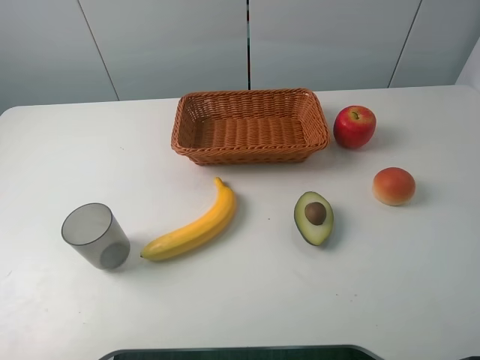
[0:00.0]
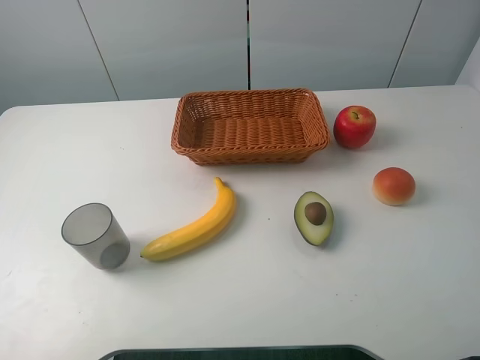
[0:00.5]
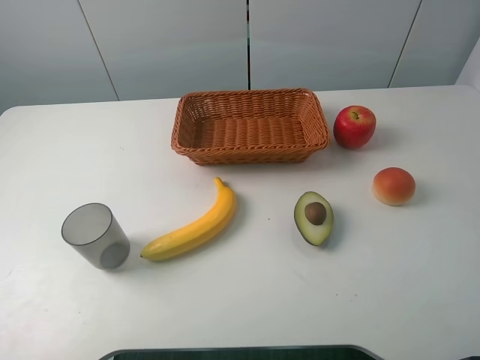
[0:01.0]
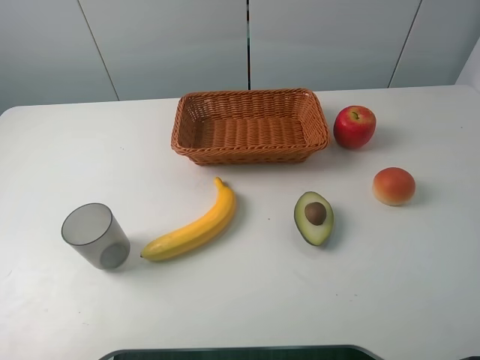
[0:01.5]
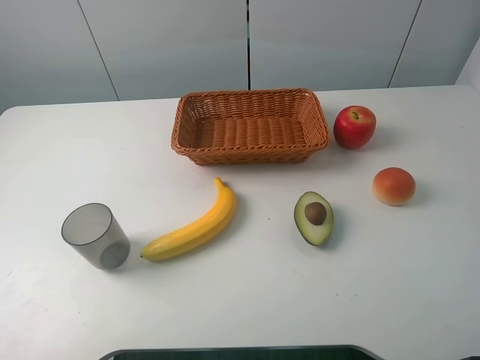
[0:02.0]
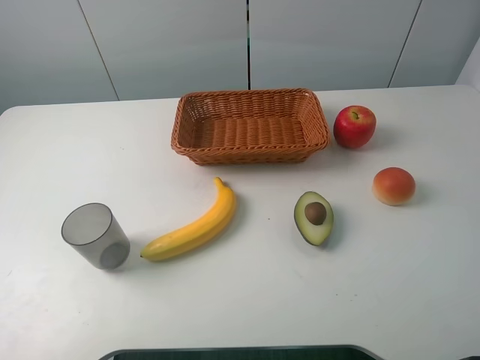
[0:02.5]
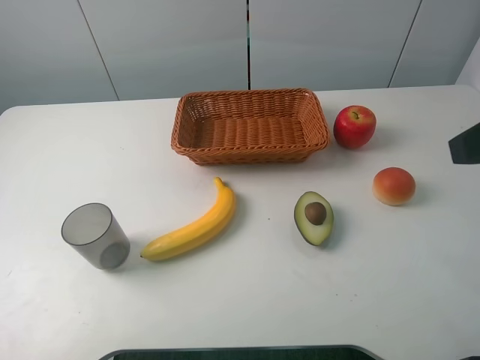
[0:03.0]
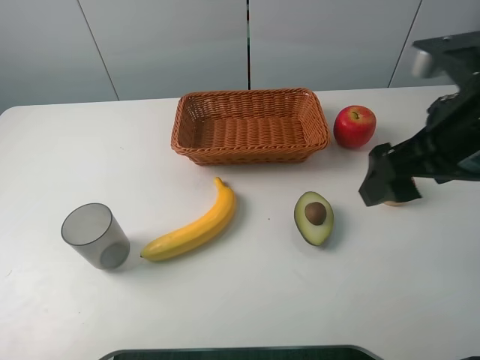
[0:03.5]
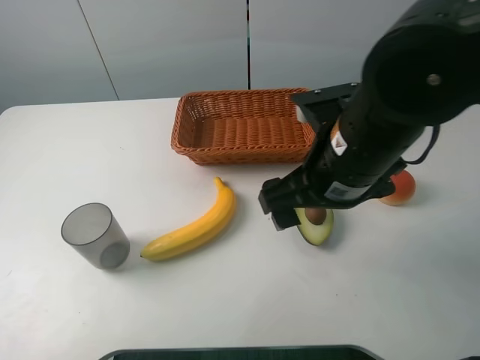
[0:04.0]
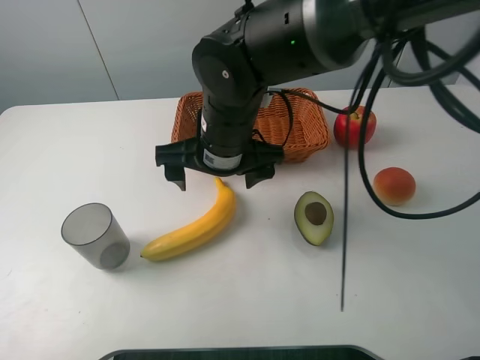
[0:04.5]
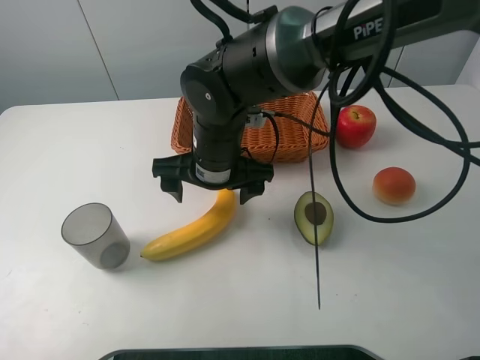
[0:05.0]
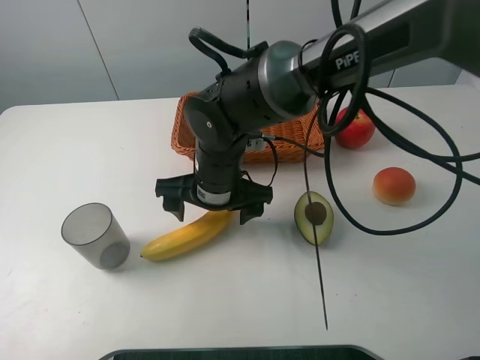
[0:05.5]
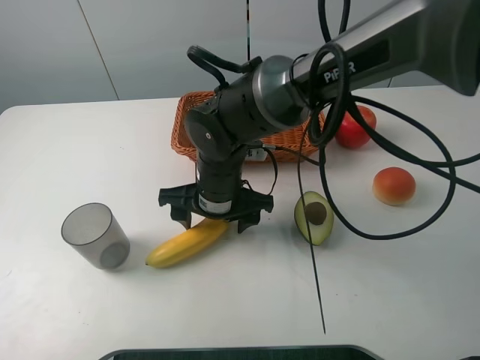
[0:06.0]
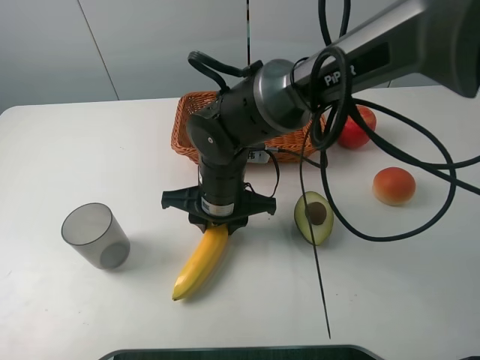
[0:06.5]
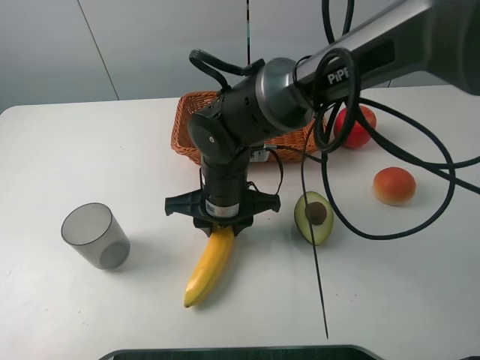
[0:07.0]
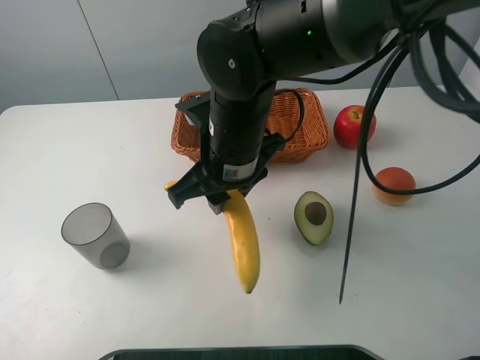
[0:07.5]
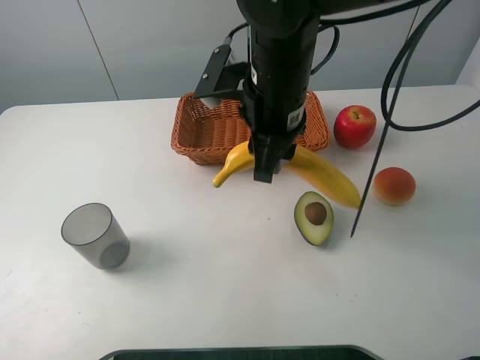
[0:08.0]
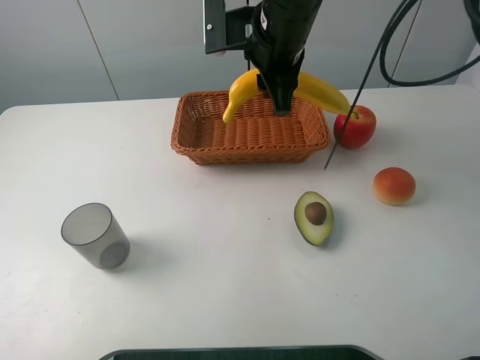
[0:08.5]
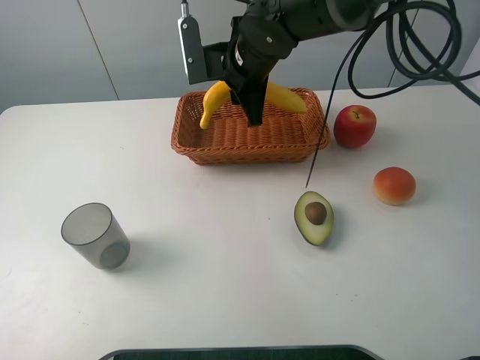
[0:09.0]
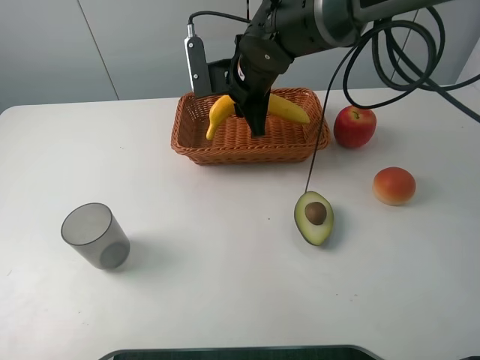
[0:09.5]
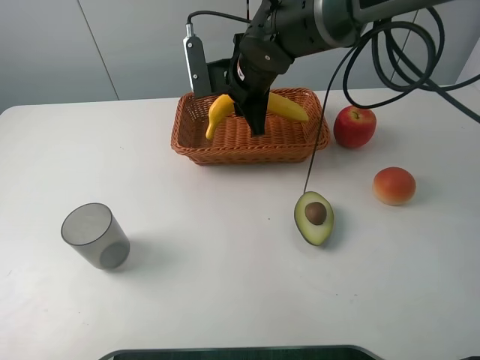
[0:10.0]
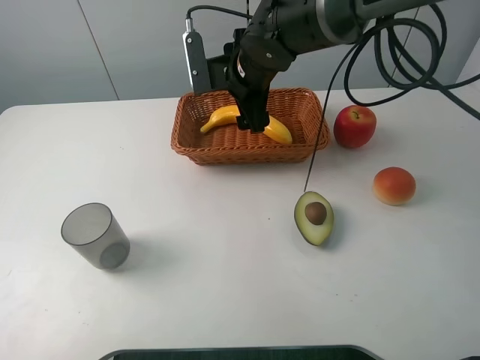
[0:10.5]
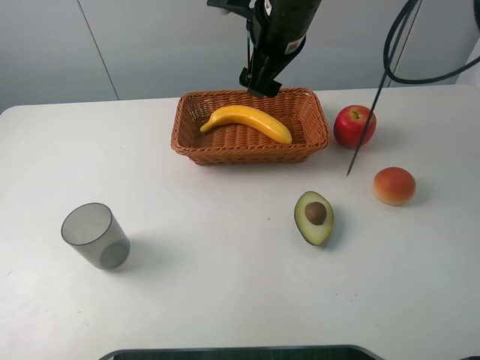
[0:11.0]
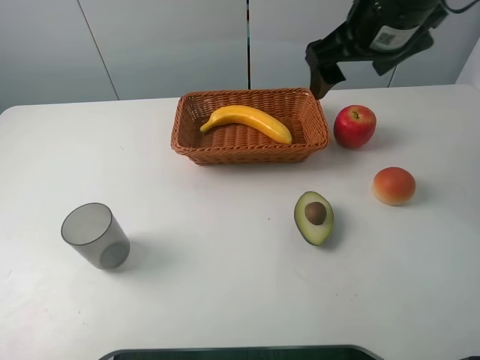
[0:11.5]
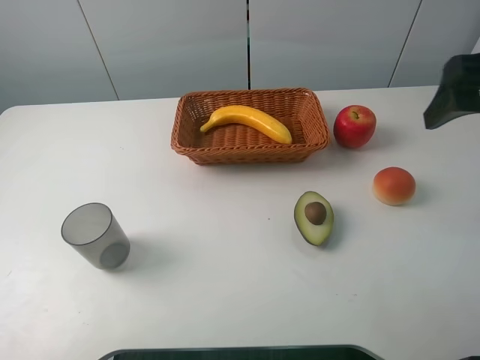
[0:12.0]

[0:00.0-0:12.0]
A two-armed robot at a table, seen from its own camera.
Task of the whole recording: randomly pick up an item from the table and put it in the basket.
Step, 0:00.0 to 0:06.0: Grasp the banana with the right gripper.
Step, 0:06.5 to 0:11.0: Place the banana into the basket with the right gripper.
0:00.0 to 0:02.0: Both grippers stay about where they are.
0:02.0 to 0:04.0: The right gripper goes approximately 25 cm to the left and forward.
0:04.0 to 0:06.0: The right gripper is displaced to the left, downward and forward by about 15 cm, and closes its fingers.
0:06.0 to 0:08.0: The right gripper heads upward and to the right, covering approximately 15 cm, and closes its fingers.
0:08.0 to 0:10.0: The right gripper heads forward and downward, covering approximately 10 cm.
0:10.0 to 0:12.0: The right gripper travels to the right, backward and upward by about 35 cm, and opens.

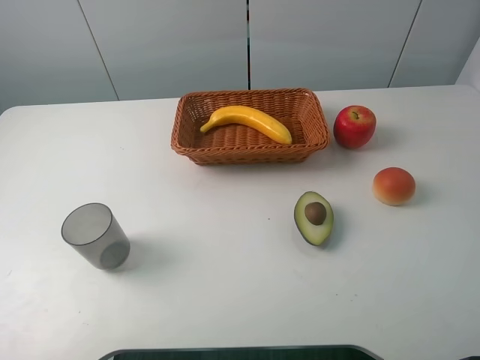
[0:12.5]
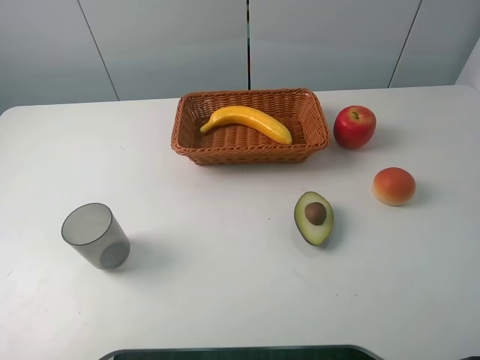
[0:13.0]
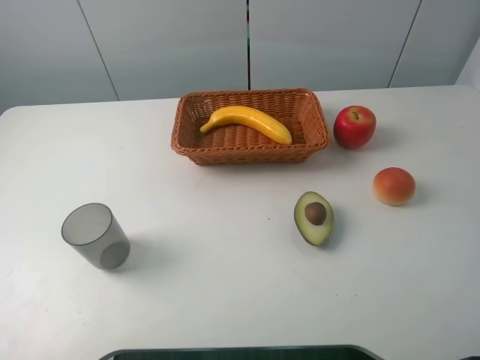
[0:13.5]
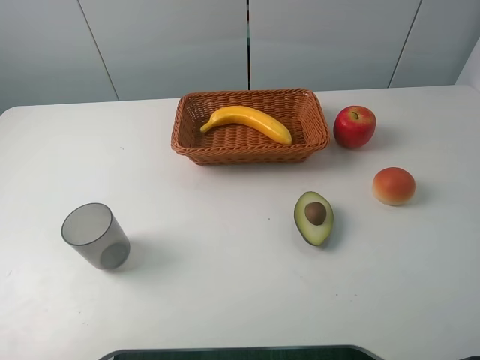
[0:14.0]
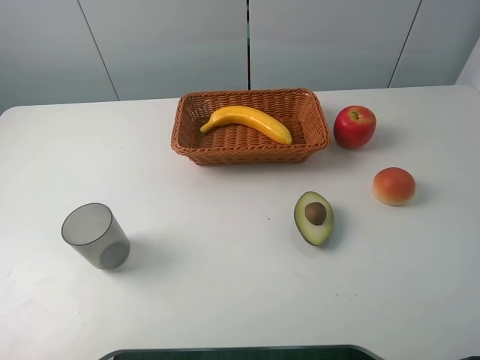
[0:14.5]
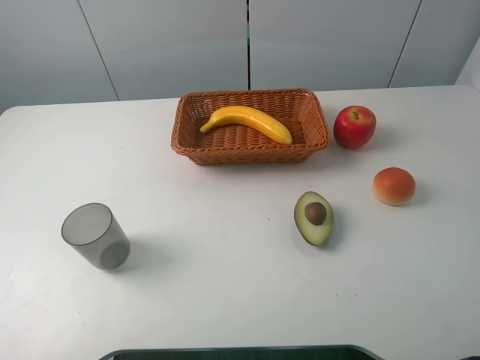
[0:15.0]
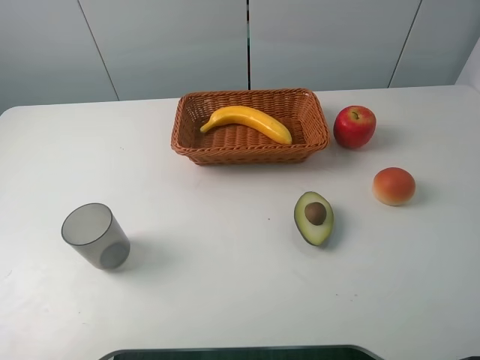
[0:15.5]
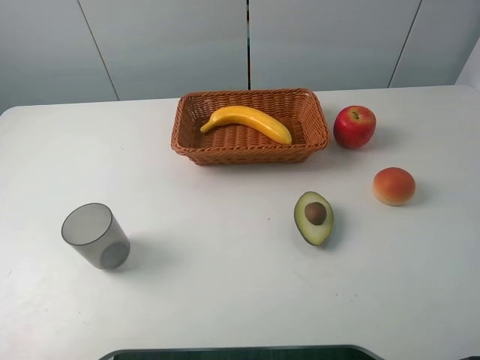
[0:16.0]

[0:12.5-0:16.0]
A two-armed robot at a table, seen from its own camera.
Task of the whole recording: randomly pick up an item from the table and put it in the basket.
0:14.5 to 0:16.0: The two grippers keep their place.
